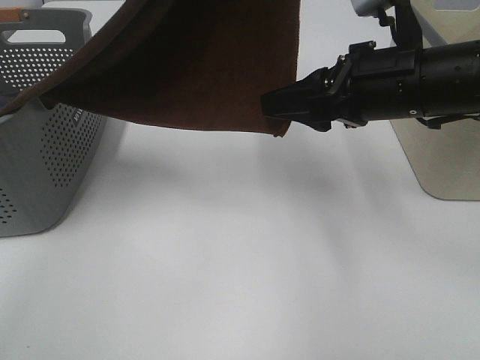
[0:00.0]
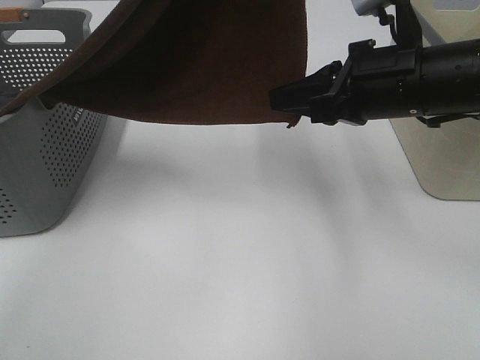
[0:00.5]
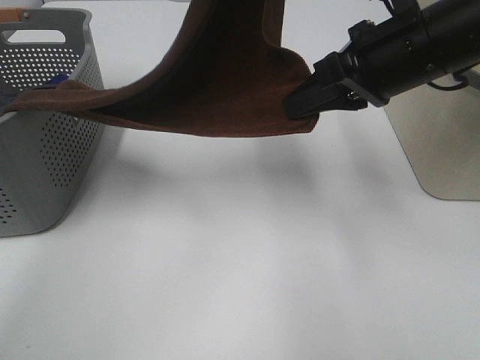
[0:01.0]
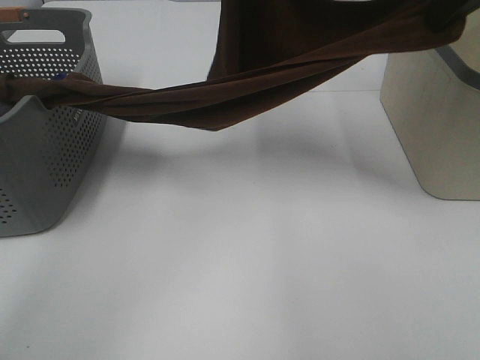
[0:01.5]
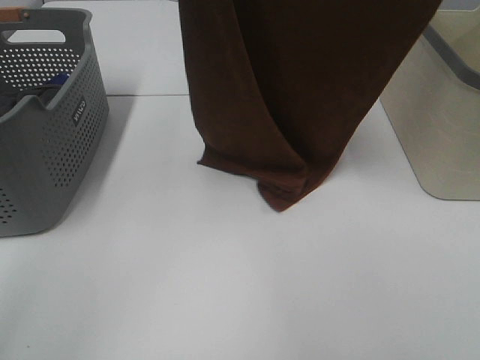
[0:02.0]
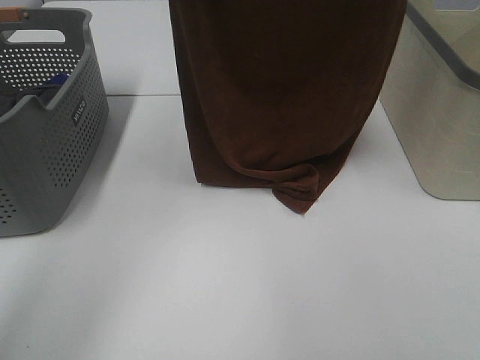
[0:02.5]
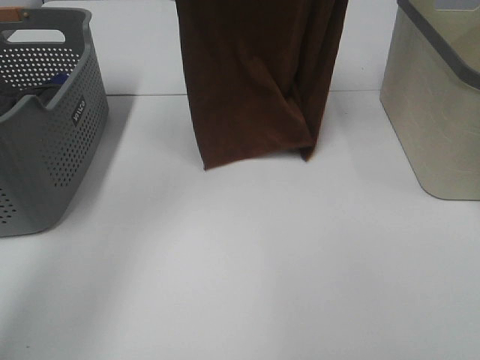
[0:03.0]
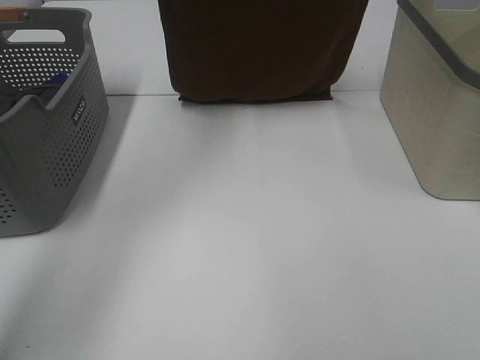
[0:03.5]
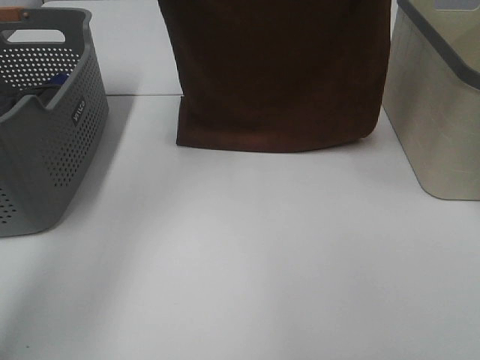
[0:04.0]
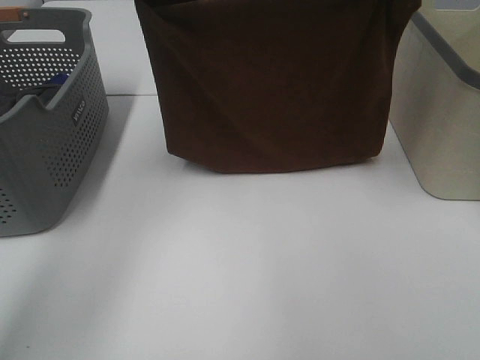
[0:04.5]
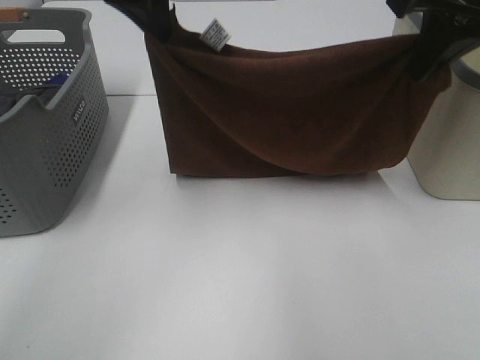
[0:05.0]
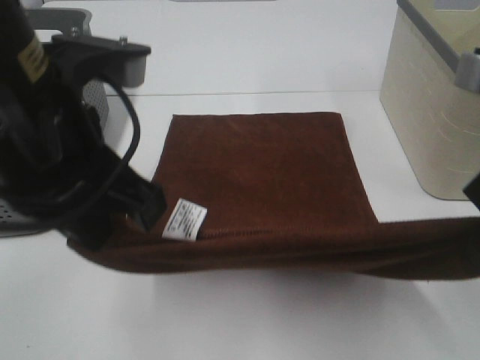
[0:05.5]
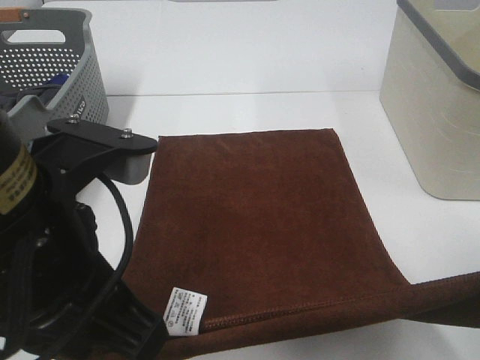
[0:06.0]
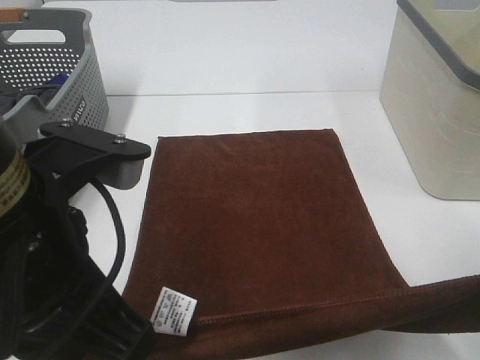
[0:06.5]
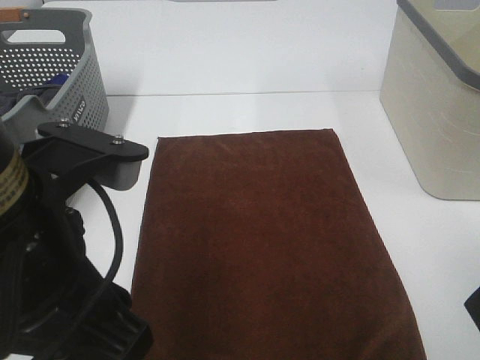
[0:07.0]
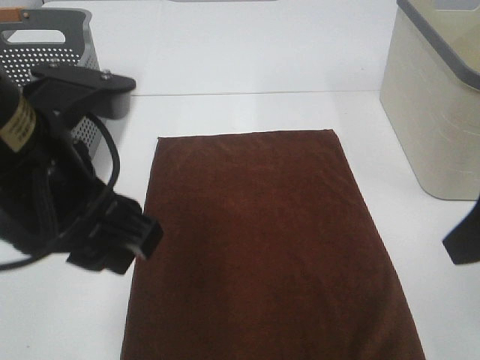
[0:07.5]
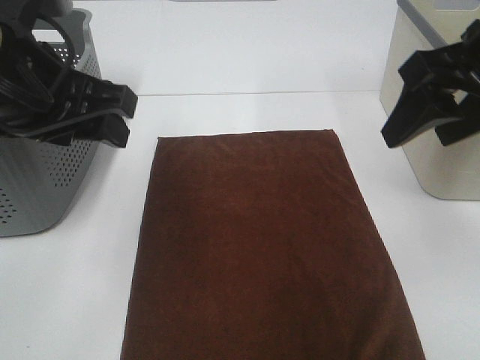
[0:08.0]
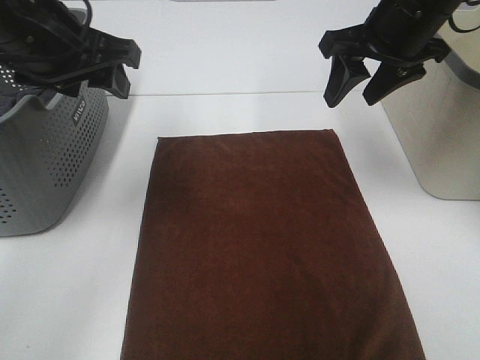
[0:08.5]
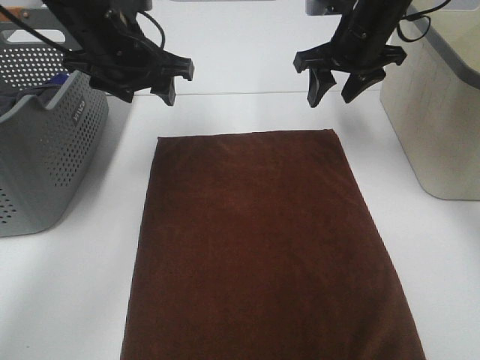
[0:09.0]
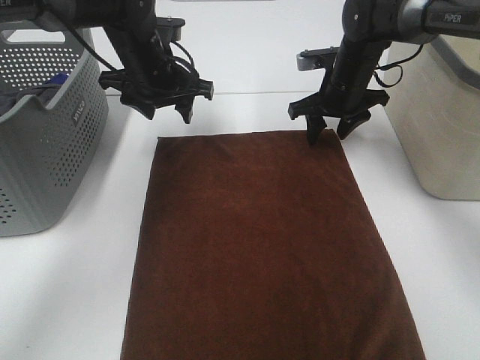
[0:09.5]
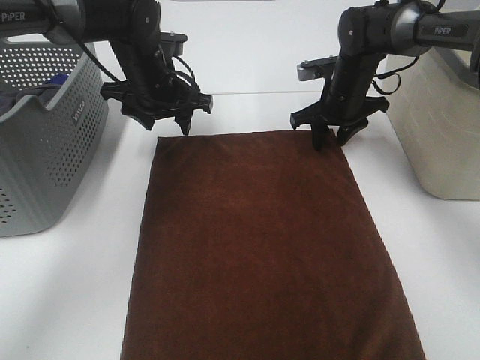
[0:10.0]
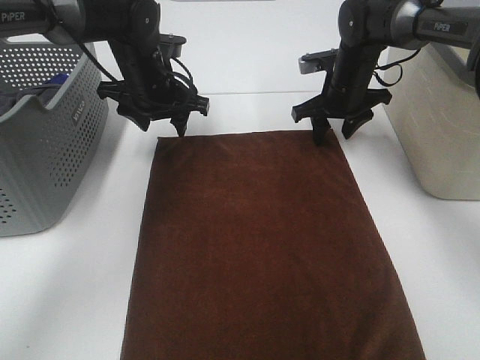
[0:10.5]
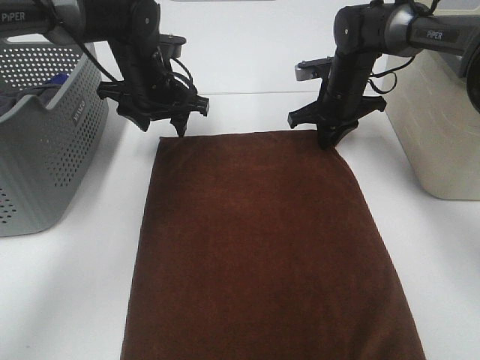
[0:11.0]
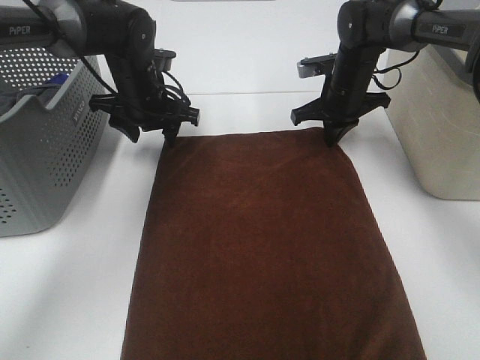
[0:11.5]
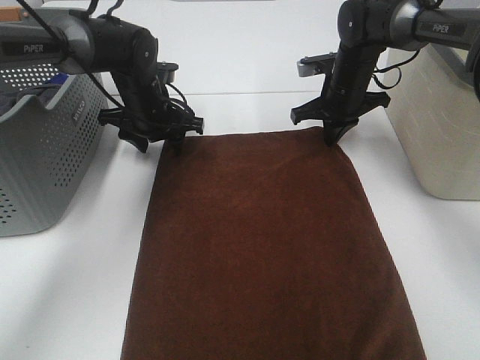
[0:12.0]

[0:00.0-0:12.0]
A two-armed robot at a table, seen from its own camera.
Task of the whole recording: Remove the towel and place it.
Step, 0:00.5 to 0:03.0: Left hand: spread the brown towel flat on the table.
Step, 0:00.5 to 0:03.0: Right hand: spread the brown towel flat on the table.
Step, 0:03.5 to 0:09.0: Left hand:adjust the brown towel.
Step, 0:03.5 to 0:09.0: Right hand:adjust the brown towel.
0:00.0 to 0:02.0: The left gripper moves to the left, roughly 10 cm, and reaches some 5 cm downward, then returns, while the right gripper shifts roughly 25 cm upward, and closes up.
0:02.0 to 0:04.0: The right gripper is displaced forward and downward by some 10 cm, while the left gripper goes roughly 15 cm downward and forward.
0:04.0 to 0:06.0: The right gripper goes roughly 30 cm backward and downward; the left gripper heads backward, covering about 30 cm.
0:06.0 to 0:08.0: The right gripper shifts some 15 cm forward, and opens up, while the left gripper moves forward and to the left, approximately 15 cm, and opens its fingers.
0:08.0 to 0:10.0: Both grippers move forward and downward, roughly 30 cm.
0:10.0 to 0:12.0: The left gripper travels downward by approximately 5 cm. The right gripper closes.

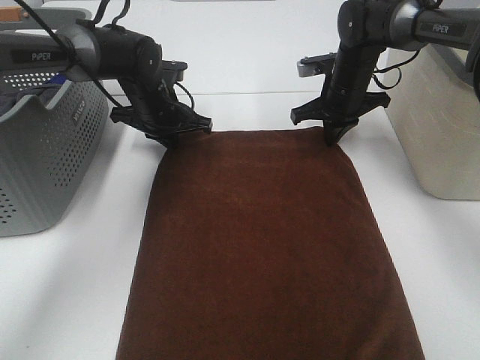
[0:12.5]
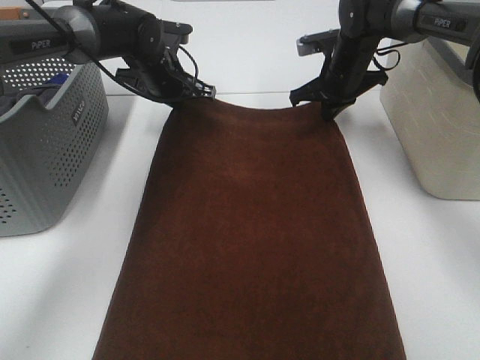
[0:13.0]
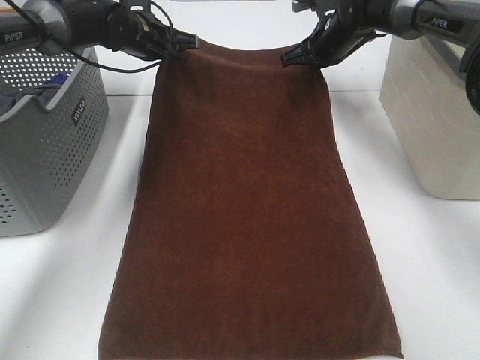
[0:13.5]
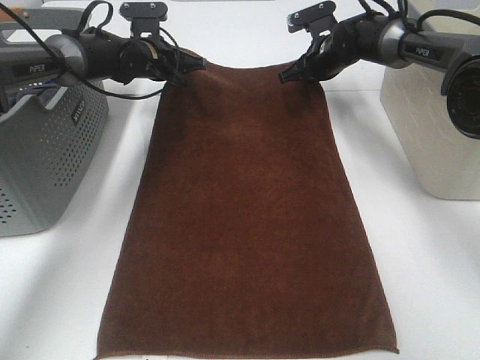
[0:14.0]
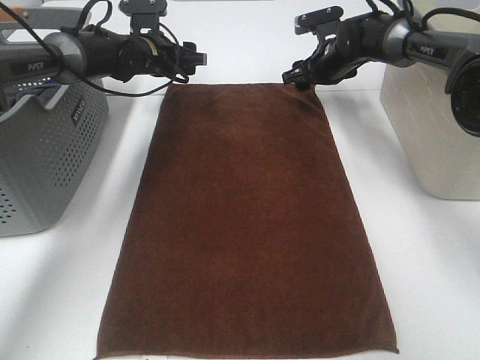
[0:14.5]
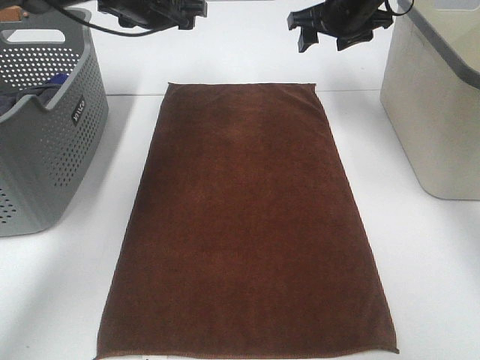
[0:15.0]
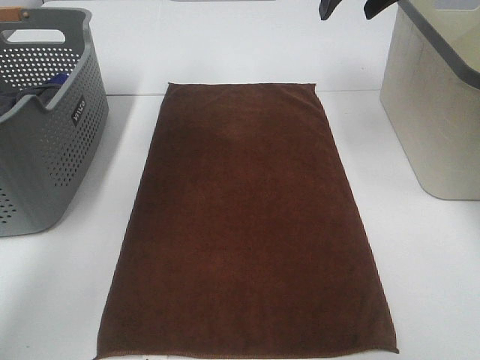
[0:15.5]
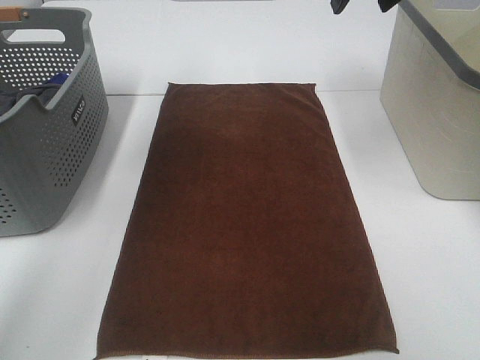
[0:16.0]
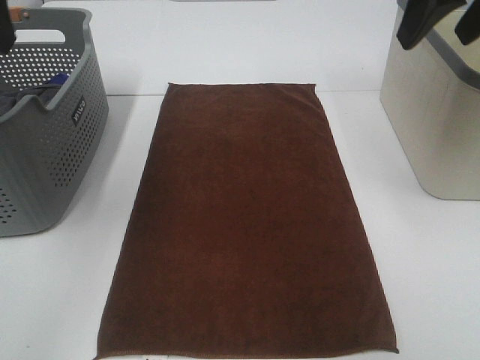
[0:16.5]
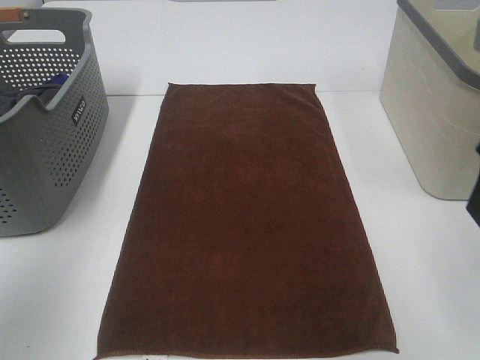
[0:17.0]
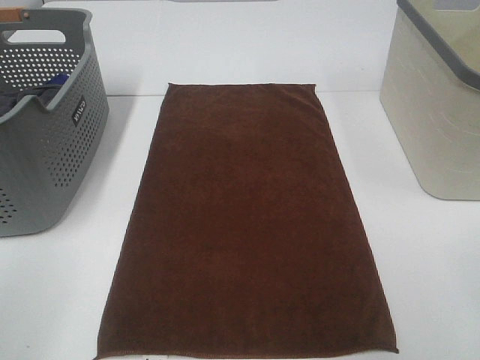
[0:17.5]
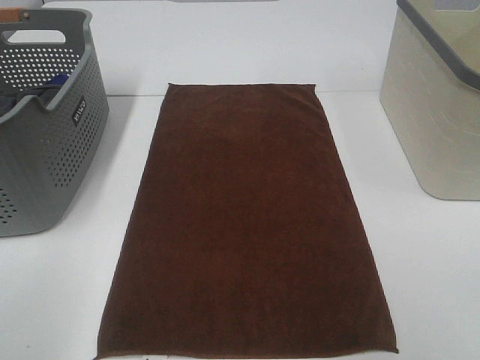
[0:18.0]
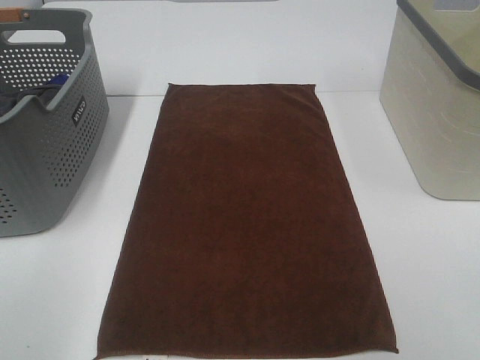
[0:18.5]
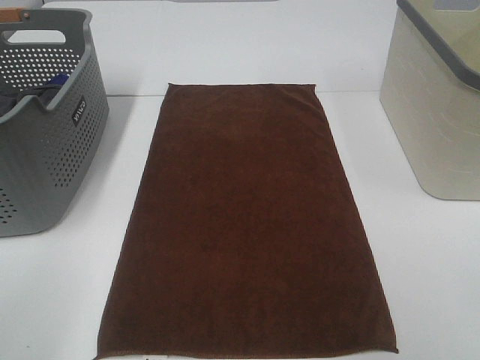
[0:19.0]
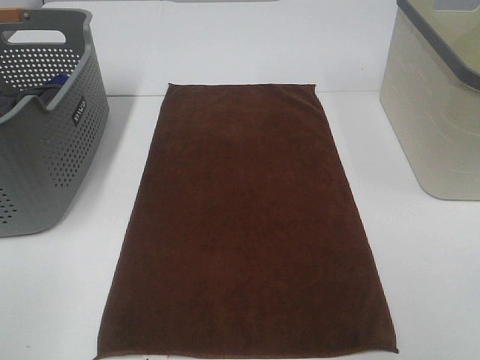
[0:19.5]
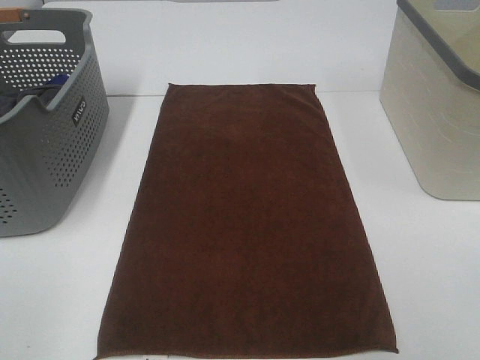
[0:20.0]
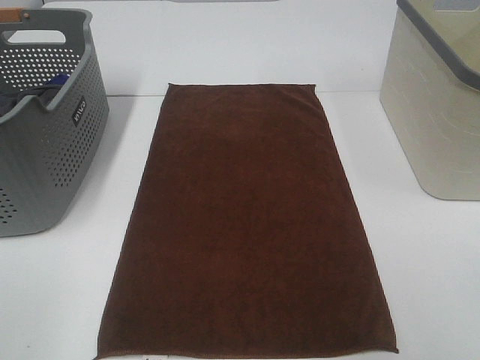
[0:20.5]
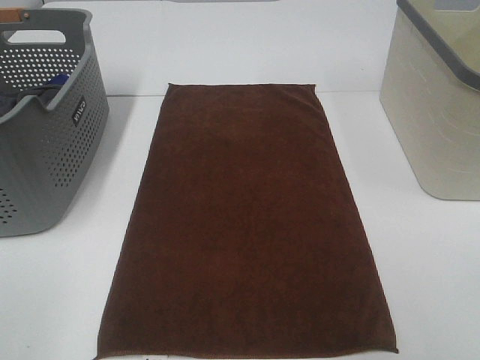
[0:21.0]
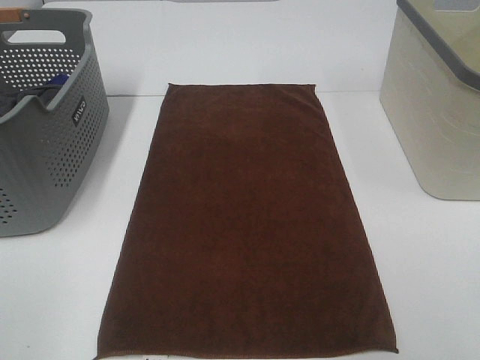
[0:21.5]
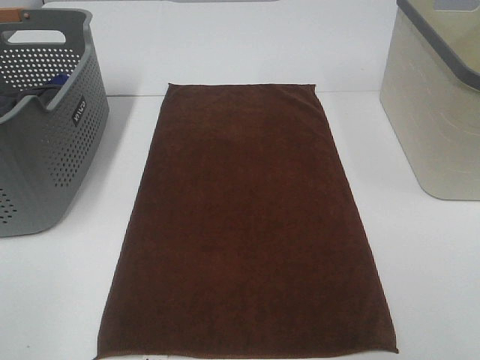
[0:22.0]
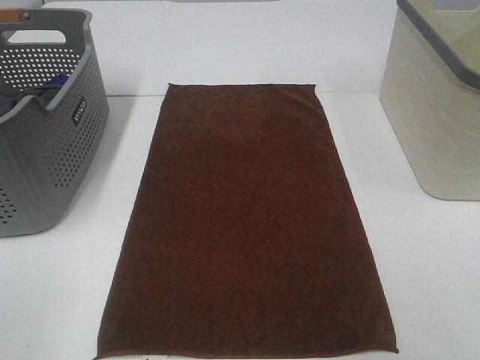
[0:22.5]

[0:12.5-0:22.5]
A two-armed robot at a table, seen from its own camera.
Task of the whole recording: Remove the towel and place it.
0:12.5 to 0:14.5: The two grippers go some 5 cm forward. The right gripper opens up, while the left gripper opens.
0:14.5 to 0:16.5: Both grippers travel together backward and upward, some 35 cm.
0:16.5 to 0:18.5: The left gripper is displaced backward and downward by some 25 cm, while the right gripper goes roughly 30 cm backward.

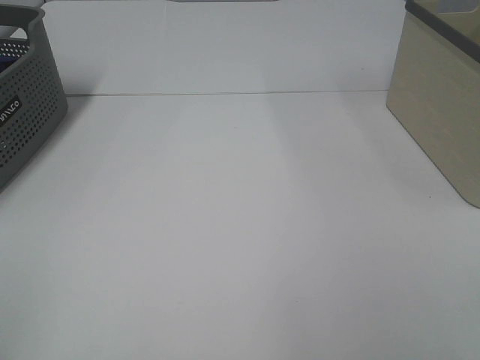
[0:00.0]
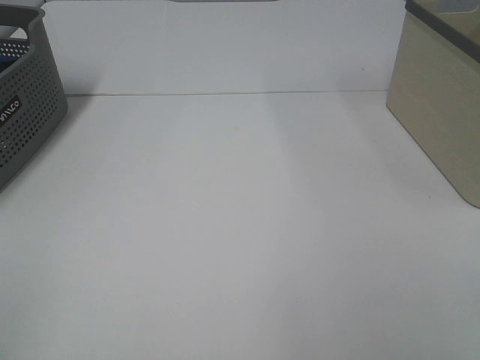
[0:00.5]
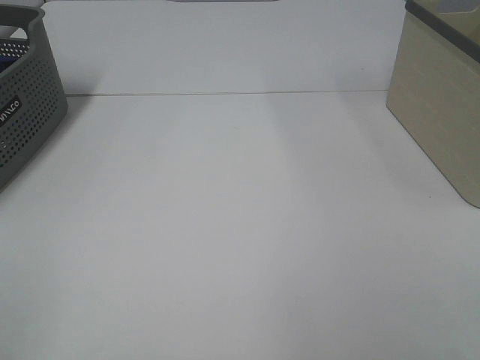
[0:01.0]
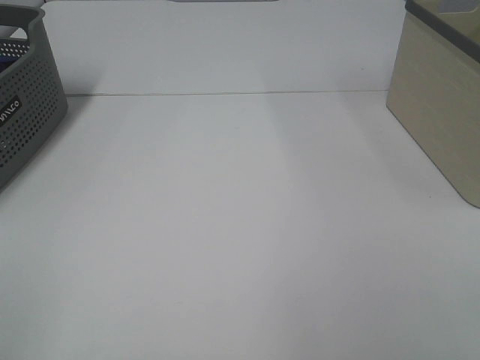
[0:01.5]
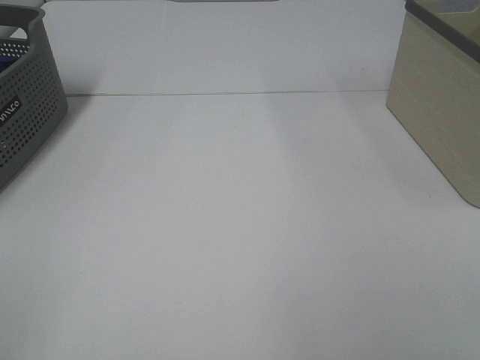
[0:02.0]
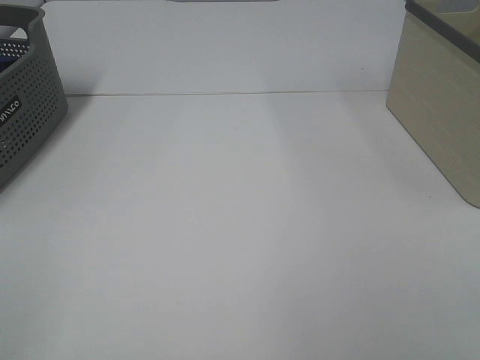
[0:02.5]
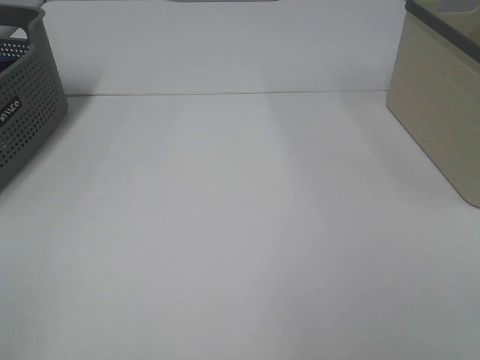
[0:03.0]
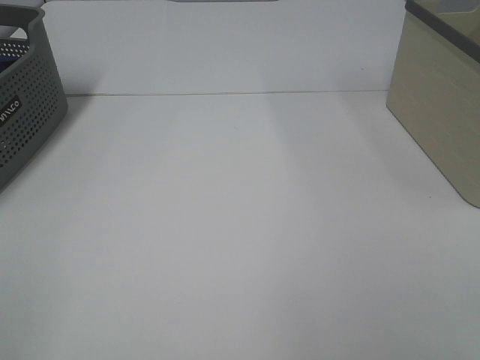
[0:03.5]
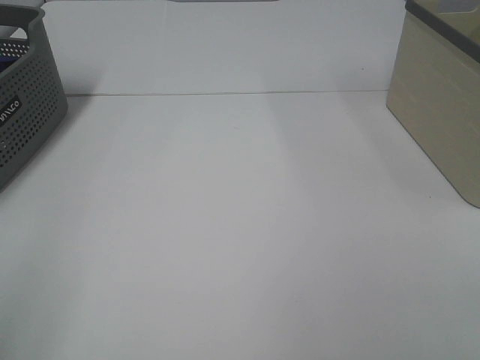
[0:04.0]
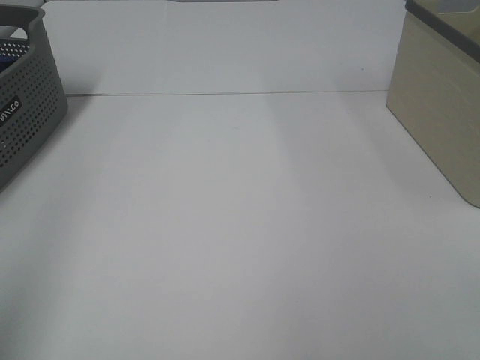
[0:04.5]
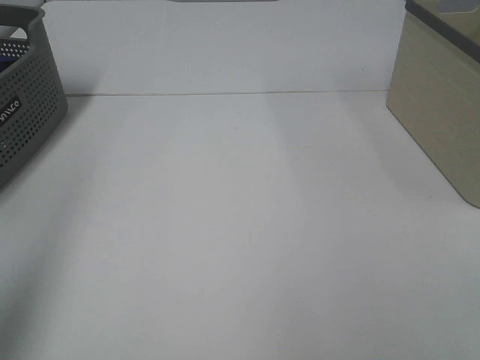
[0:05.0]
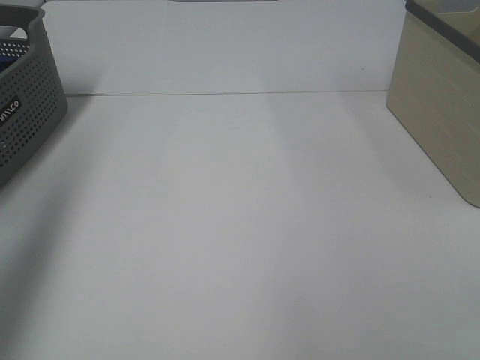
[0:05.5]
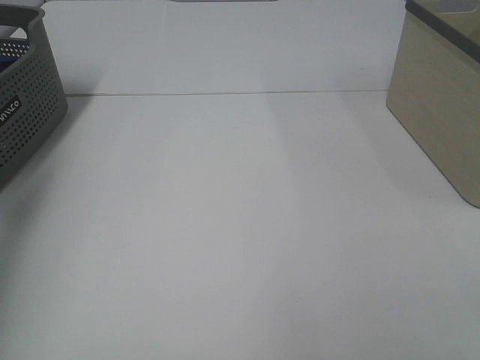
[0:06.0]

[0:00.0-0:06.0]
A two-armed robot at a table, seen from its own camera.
Task of the whole recording: Remove the towel and place it.
0:00.0 to 0:02.0: The two grippers keep their place.
0:04.0 to 0:06.0: The left gripper moves forward and to the left, some 30 cm.
